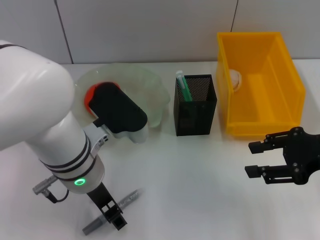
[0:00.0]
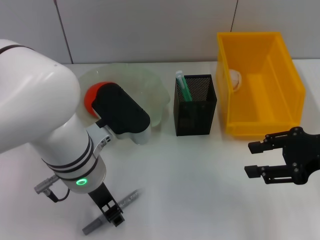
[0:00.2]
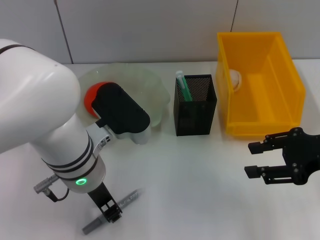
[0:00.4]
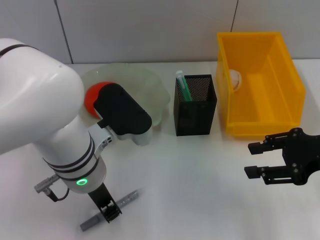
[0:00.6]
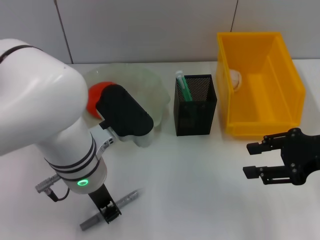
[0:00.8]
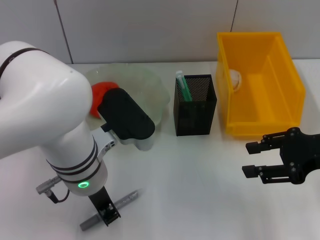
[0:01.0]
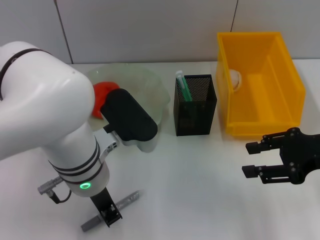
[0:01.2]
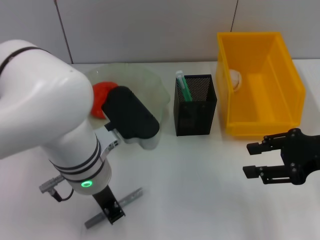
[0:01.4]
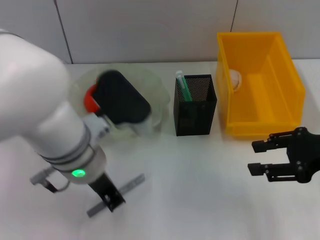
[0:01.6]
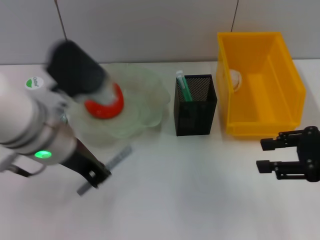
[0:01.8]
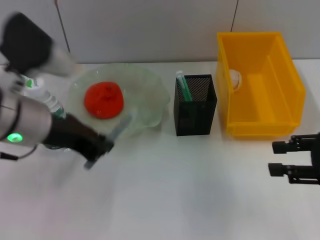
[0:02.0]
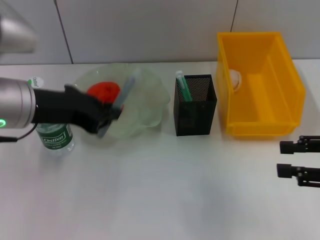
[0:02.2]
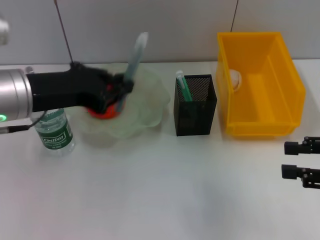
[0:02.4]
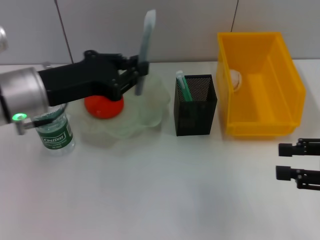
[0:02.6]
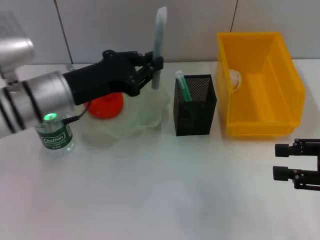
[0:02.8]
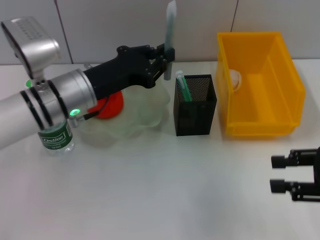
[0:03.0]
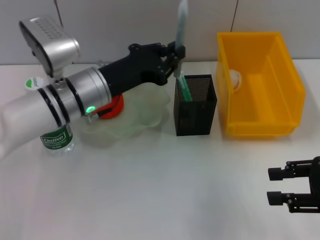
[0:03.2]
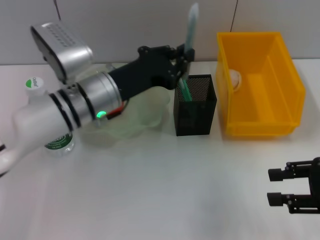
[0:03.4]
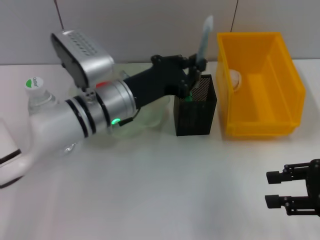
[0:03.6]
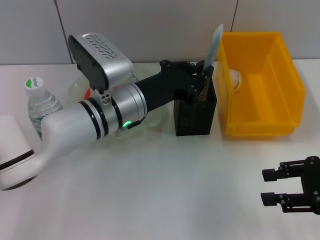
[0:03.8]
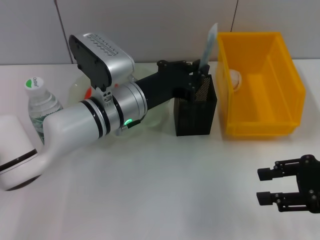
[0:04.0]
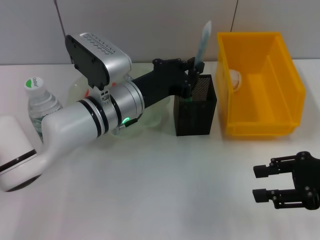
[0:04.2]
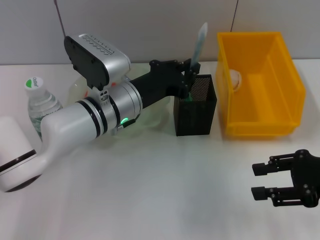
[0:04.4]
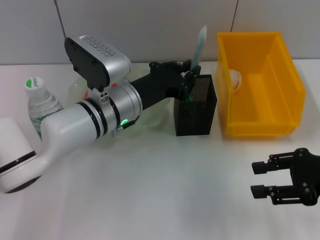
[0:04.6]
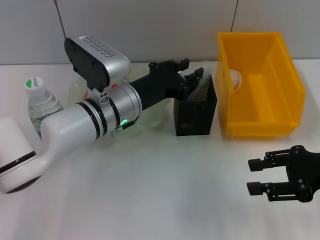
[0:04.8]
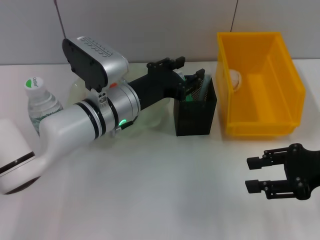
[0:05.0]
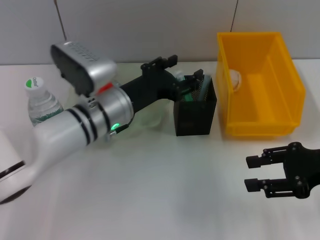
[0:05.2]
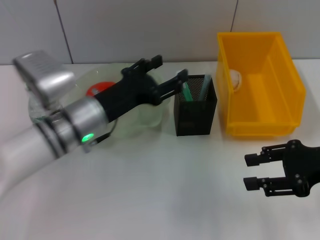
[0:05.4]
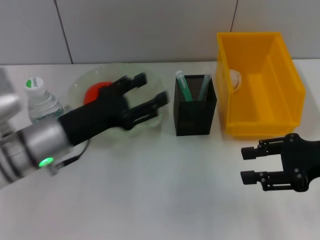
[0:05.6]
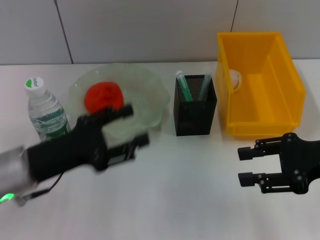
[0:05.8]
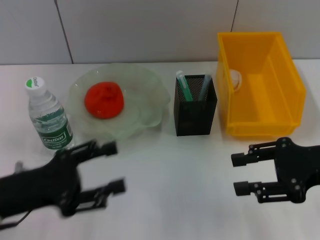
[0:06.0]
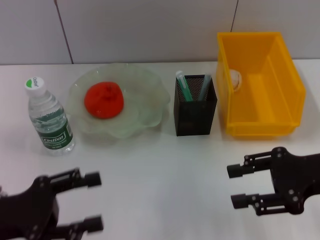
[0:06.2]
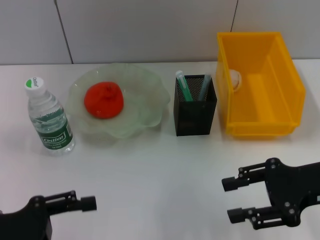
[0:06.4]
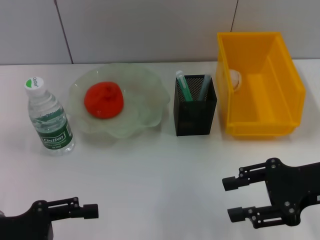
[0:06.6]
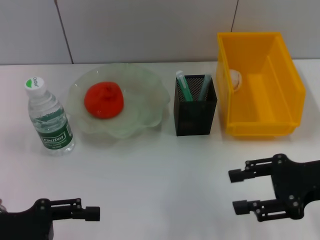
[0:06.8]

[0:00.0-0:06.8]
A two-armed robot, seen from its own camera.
Step, 0:01.2 to 0:04.8: Place the gray glue into the pen holder with the left hand.
0:00.0 to 0:01.4: The left gripper closes its fingers.
0:01.4 to 0:02.8: The left gripper moves to the left and forward, about 10 cm. The right gripper shifts by roughly 5 cm.
0:02.8 to 0:04.0: The left gripper shifts approximately 10 cm to the right.
0:04.0 to 0:05.4: The left gripper moves to the left, some 5 cm, and opens up.
0:05.4 to 0:06.8: The left gripper is displaced to the left and backward by some 20 cm.

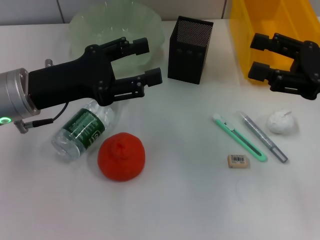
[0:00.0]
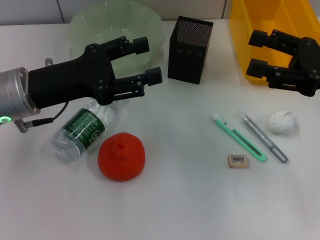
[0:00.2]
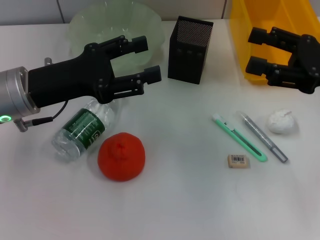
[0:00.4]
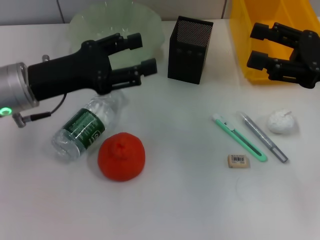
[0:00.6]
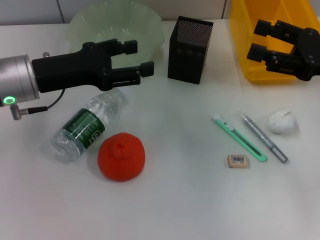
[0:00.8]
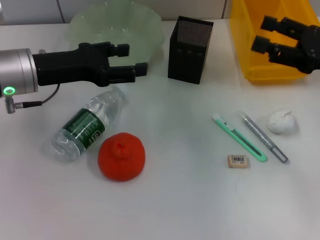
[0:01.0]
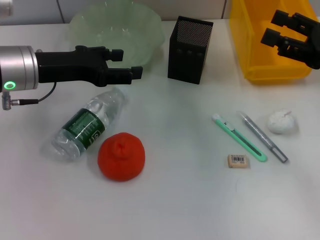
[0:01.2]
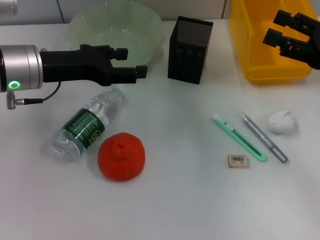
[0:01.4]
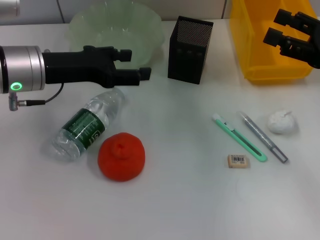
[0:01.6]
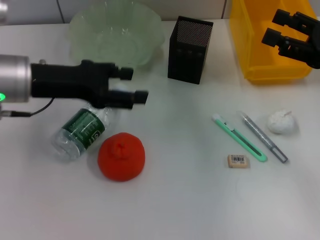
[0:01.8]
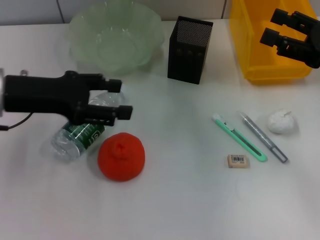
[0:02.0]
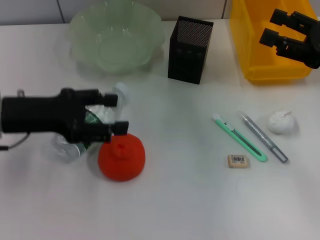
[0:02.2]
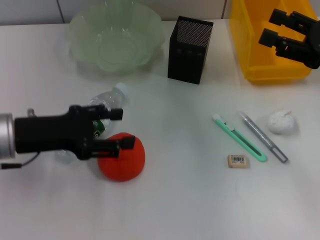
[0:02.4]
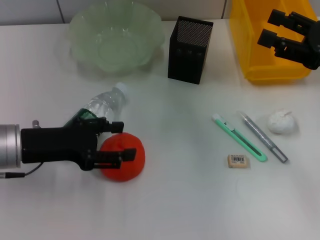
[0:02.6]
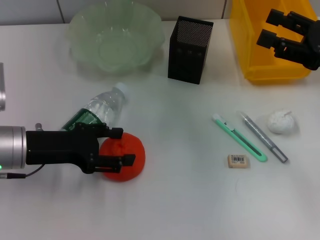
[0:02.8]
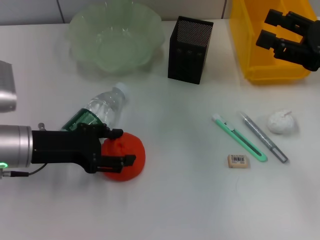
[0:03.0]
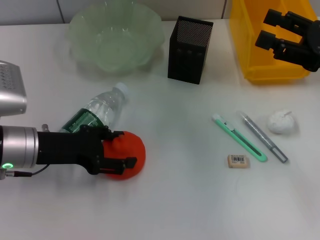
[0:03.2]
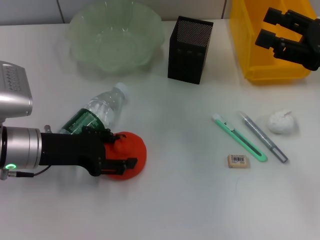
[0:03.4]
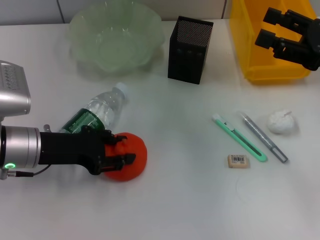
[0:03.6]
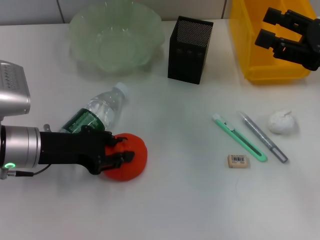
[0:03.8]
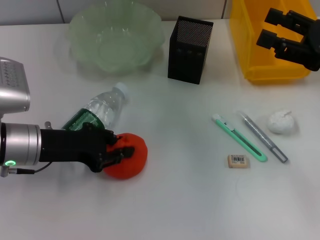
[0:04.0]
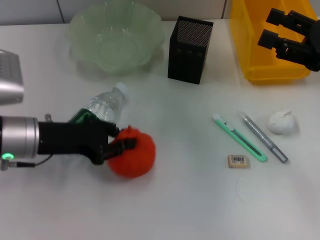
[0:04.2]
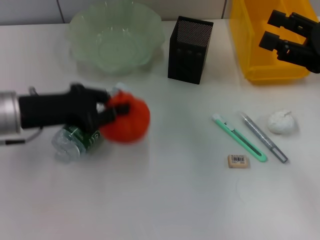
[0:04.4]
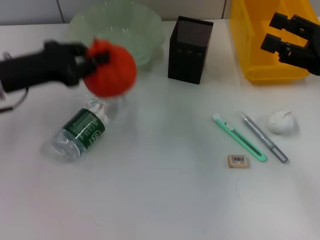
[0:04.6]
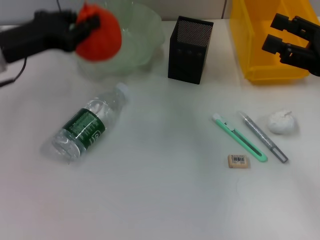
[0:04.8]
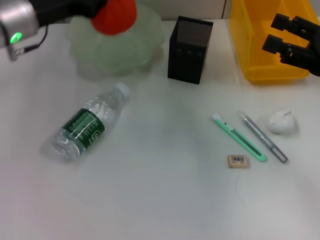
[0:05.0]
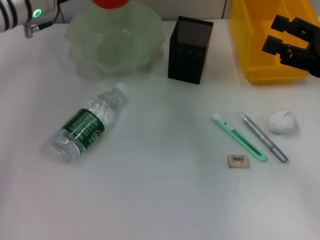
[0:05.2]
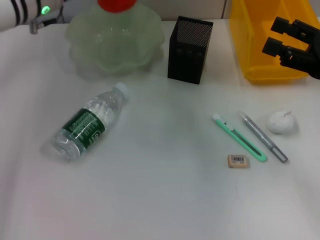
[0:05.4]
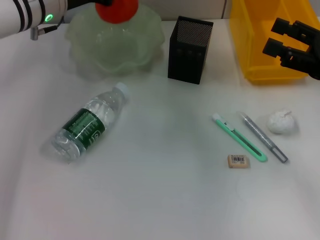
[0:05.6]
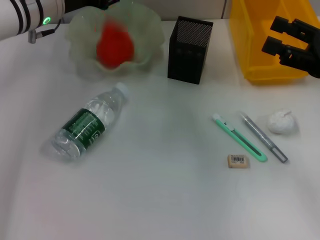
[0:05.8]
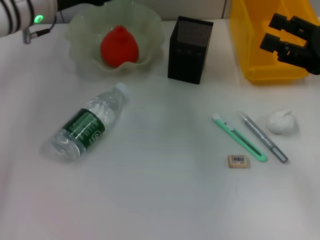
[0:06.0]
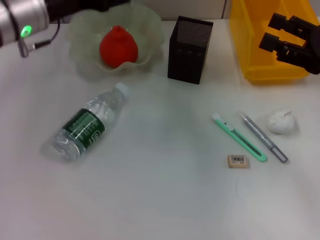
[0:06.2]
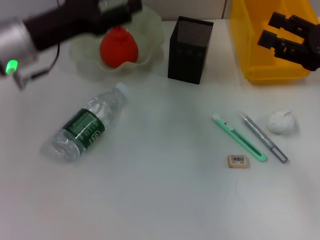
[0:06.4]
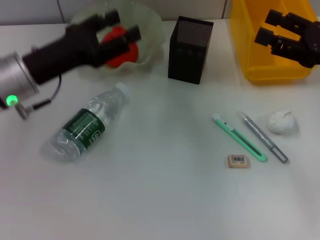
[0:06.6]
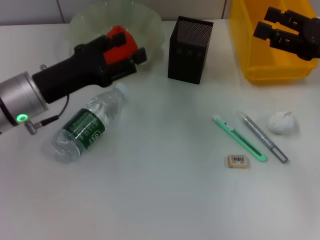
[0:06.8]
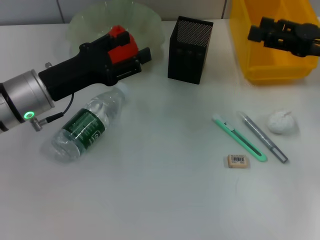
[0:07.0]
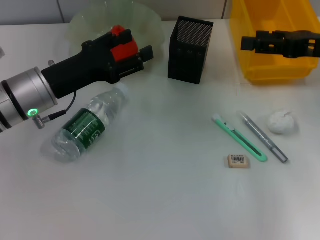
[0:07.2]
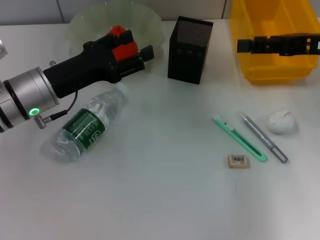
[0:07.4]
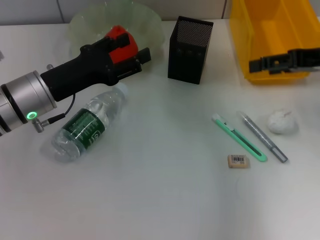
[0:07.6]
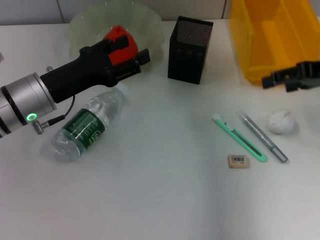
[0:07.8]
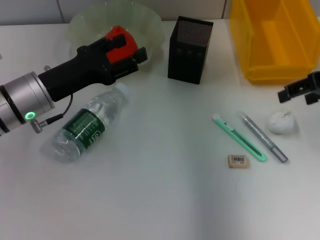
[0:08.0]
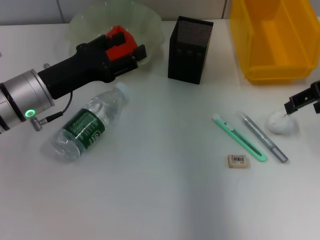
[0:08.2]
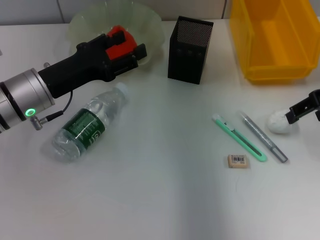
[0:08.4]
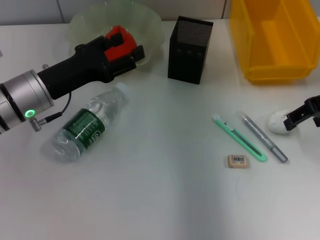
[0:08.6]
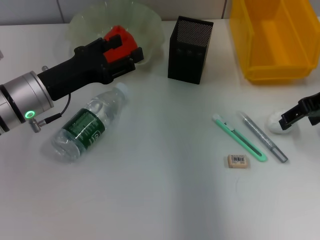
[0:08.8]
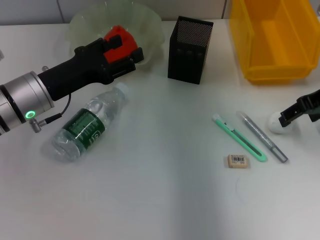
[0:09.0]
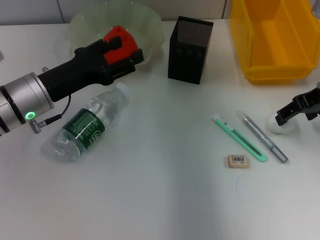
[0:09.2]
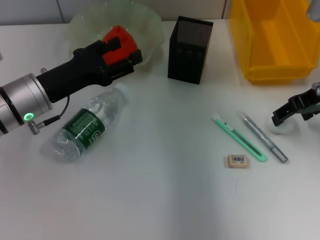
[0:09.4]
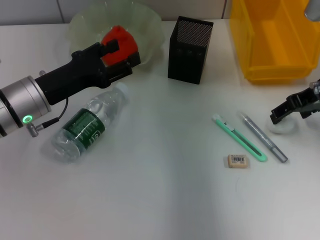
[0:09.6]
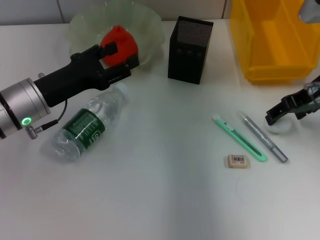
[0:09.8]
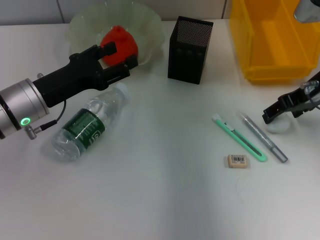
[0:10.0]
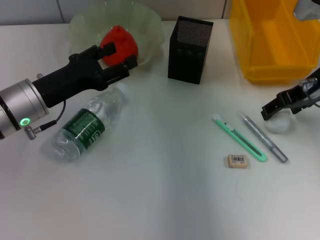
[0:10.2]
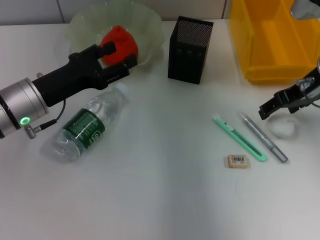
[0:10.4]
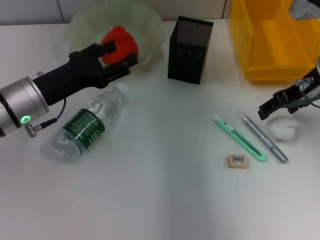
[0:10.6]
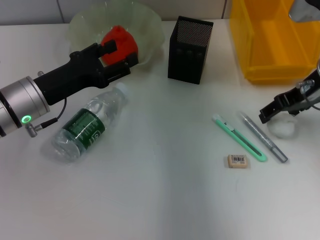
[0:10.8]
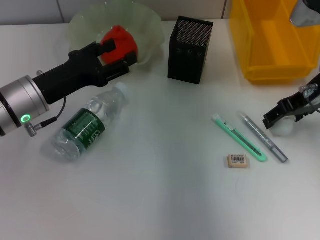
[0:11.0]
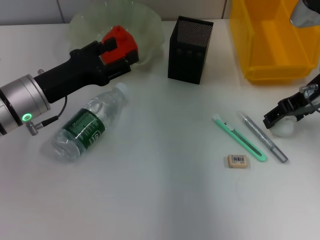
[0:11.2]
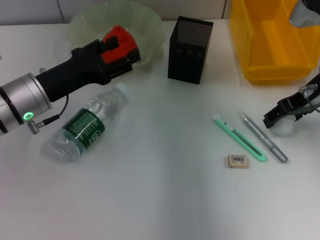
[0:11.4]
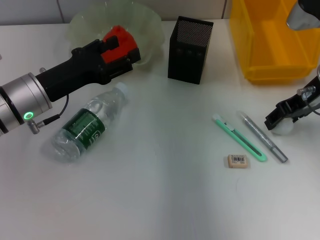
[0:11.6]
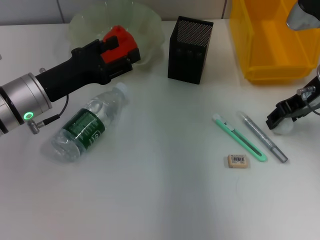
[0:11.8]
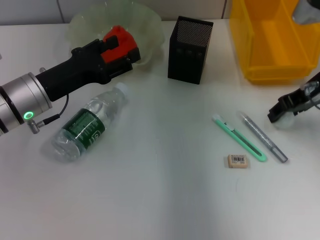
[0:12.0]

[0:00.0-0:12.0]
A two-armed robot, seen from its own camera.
Step, 0:00.0 to 0:03.8: Grab the orange with the left hand.
Step, 0:04.0 to 0:06.0: Place the orange into the fruit bowl with the left hand.
Step, 0:06.2 to 0:11.6: Grab the paper ball with the right hand.
0:01.6 to 0:03.0: The left gripper is displaced downward and backward by some 10 cm.
0:03.0 to 0:04.4: The left gripper closes up.
0:04.4 to 0:06.0: The left gripper travels forward by about 15 cm, and opens up.
0:06.0 to 0:07.6: The left gripper travels backward and downward by some 15 cm, and opens its fingers, while the right gripper travels upward by roughly 5 cm.
0:09.0 to 0:10.4: The grippers move only a little.
0:10.4 to 0:12.0: The right gripper closes.

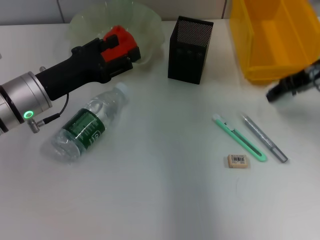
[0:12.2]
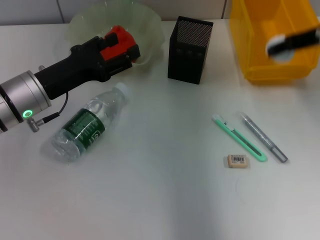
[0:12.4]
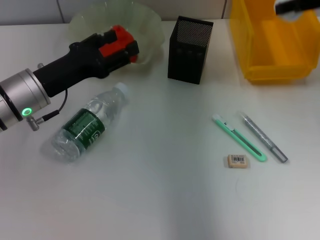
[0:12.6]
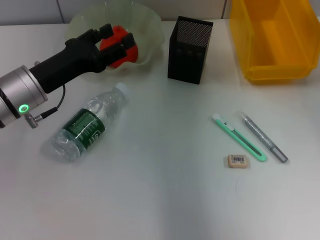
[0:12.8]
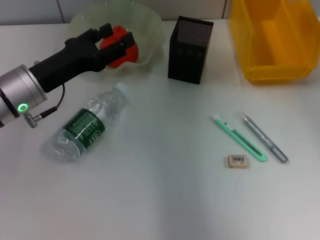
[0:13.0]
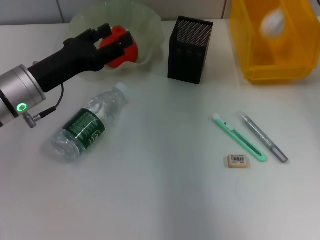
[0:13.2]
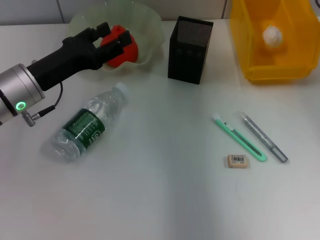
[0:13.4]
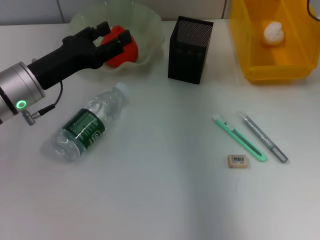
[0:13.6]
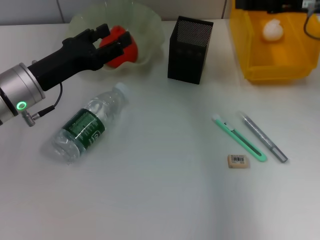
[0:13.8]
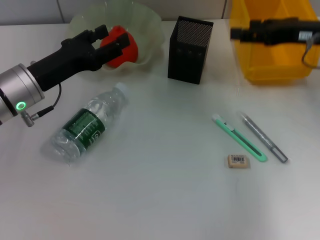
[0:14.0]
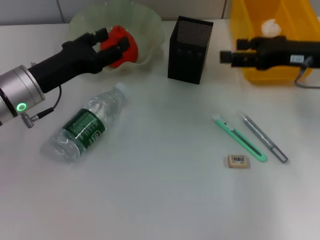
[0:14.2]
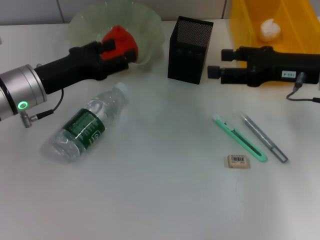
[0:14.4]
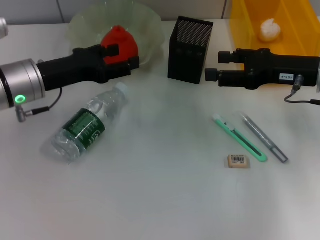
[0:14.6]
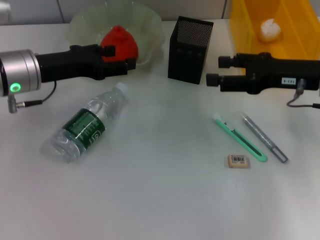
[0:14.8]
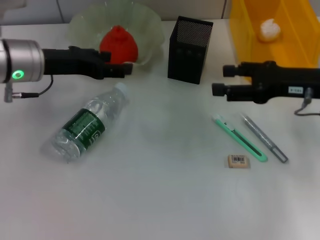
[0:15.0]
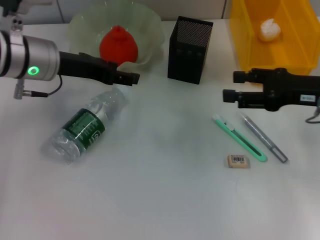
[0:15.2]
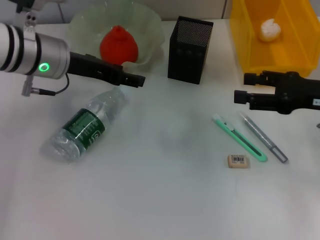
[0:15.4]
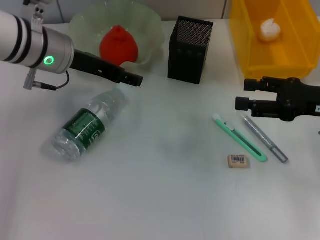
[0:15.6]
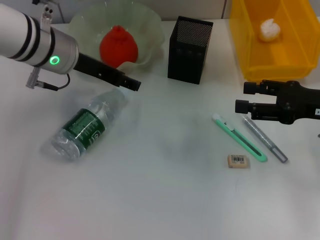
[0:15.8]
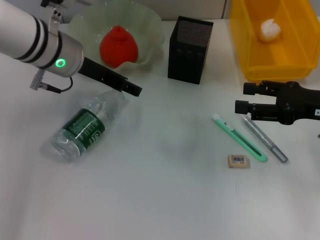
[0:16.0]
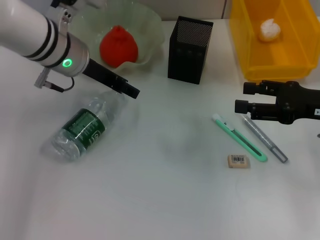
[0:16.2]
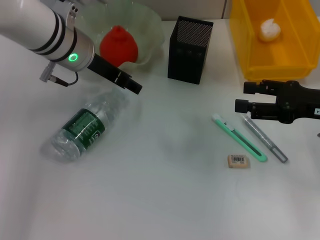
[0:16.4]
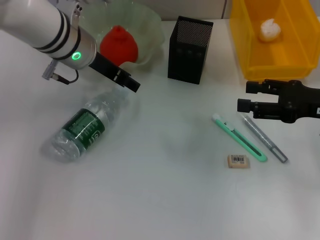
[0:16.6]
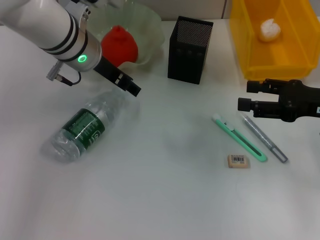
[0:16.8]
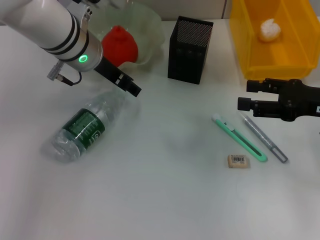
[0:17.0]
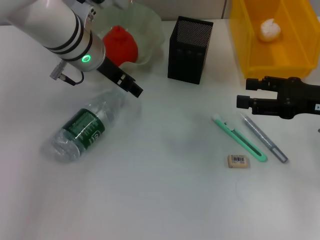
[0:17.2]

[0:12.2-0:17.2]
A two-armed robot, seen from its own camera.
Step, 0:12.2 to 0:13.8: Place the paper ball into the trash can with the right hand.
0:12.2 to 0:13.8: The right gripper opens up.
0:13.8 to 0:15.6: The left gripper is displaced upward, forward and to the right by some 10 cm, while the right gripper is displaced backward and downward by some 15 cm.
0:15.6 to 0:17.2: The left gripper goes about 5 cm to the right.
